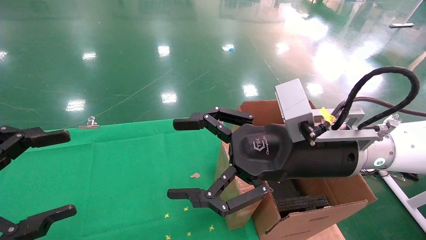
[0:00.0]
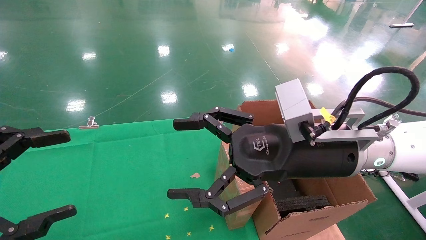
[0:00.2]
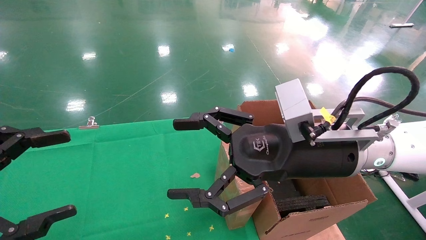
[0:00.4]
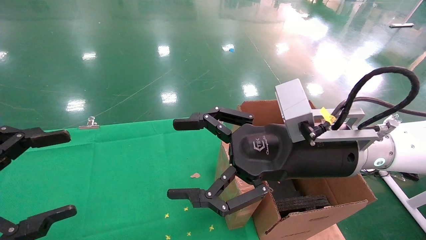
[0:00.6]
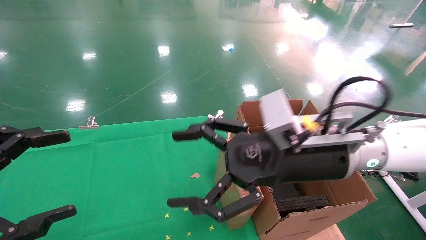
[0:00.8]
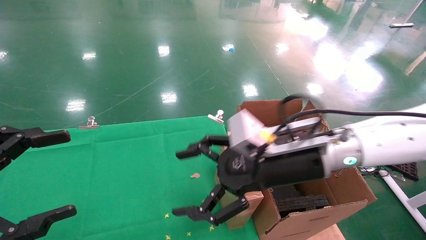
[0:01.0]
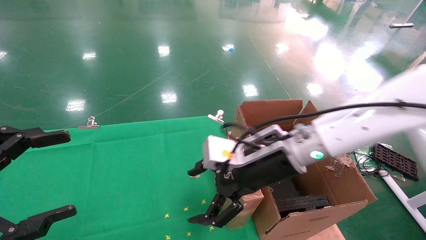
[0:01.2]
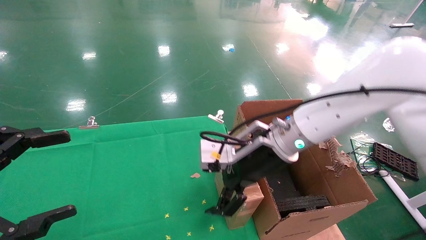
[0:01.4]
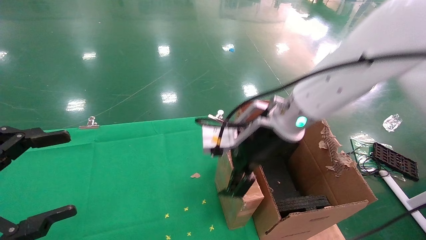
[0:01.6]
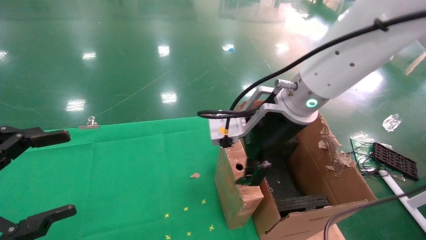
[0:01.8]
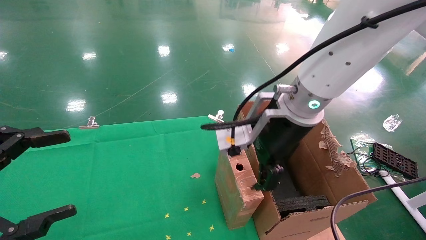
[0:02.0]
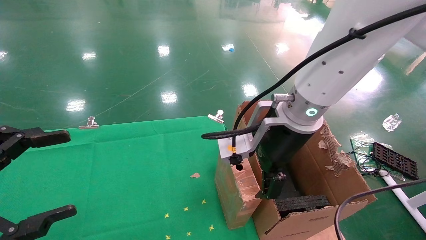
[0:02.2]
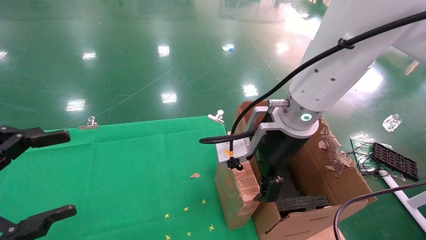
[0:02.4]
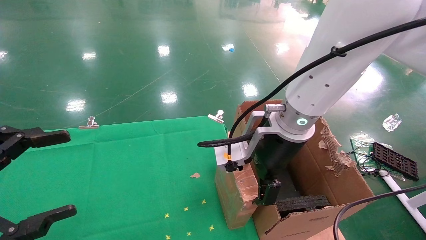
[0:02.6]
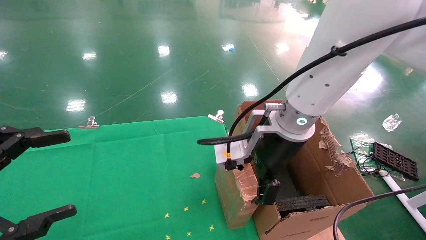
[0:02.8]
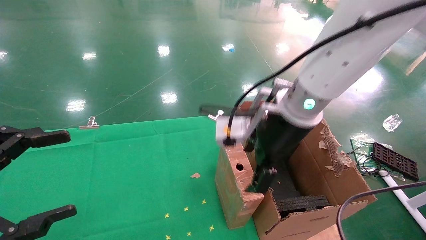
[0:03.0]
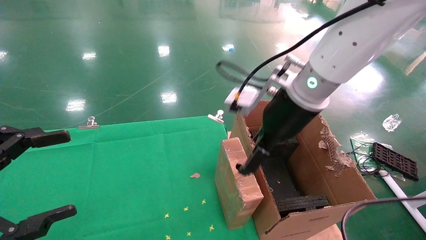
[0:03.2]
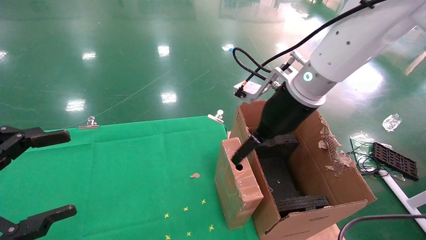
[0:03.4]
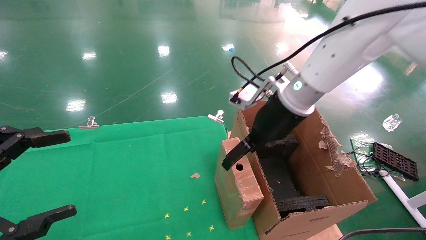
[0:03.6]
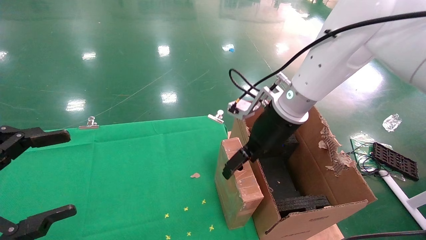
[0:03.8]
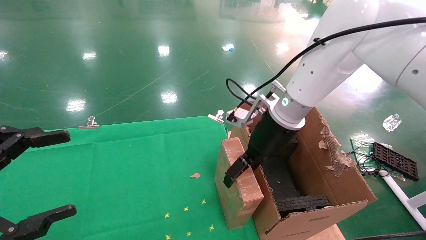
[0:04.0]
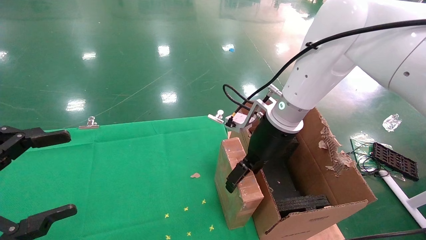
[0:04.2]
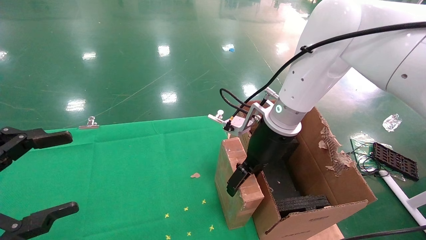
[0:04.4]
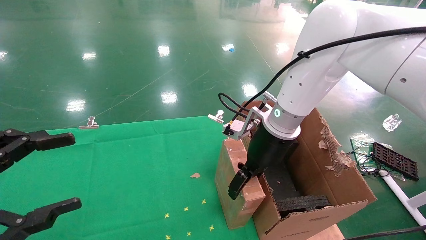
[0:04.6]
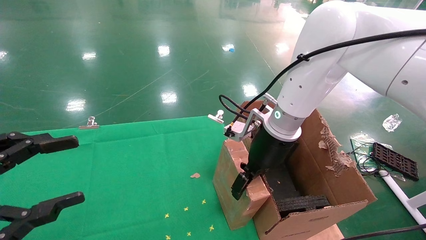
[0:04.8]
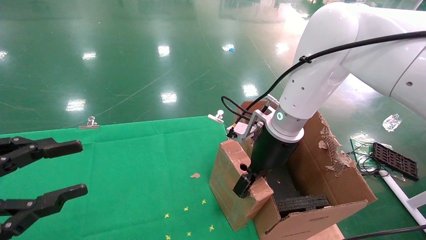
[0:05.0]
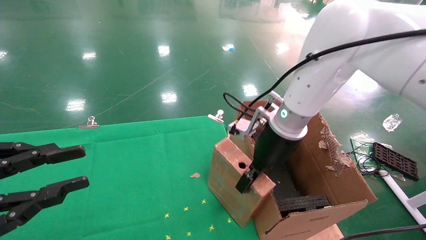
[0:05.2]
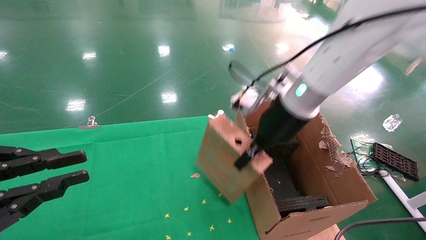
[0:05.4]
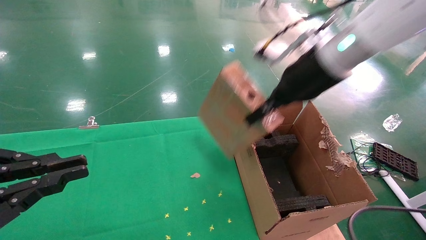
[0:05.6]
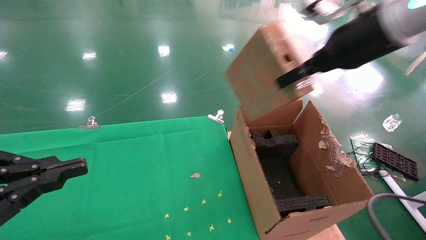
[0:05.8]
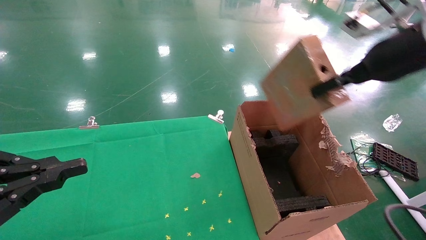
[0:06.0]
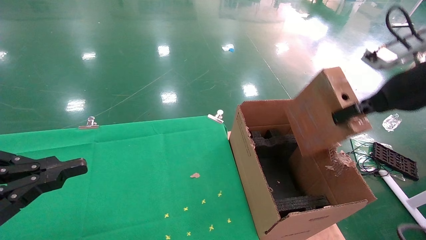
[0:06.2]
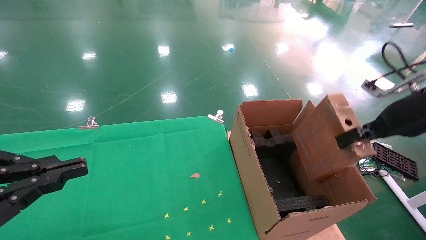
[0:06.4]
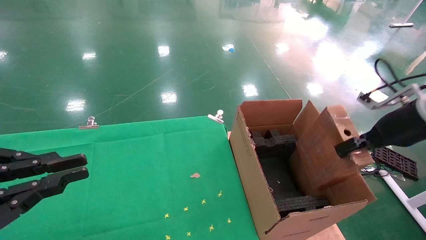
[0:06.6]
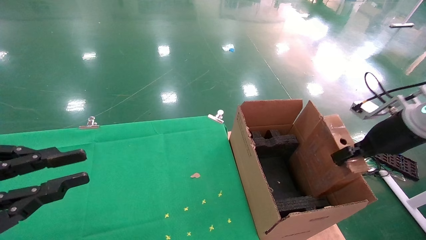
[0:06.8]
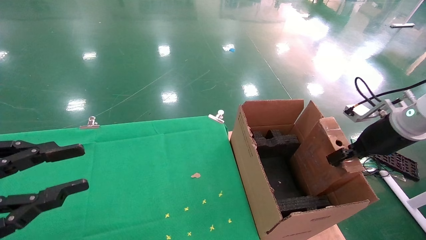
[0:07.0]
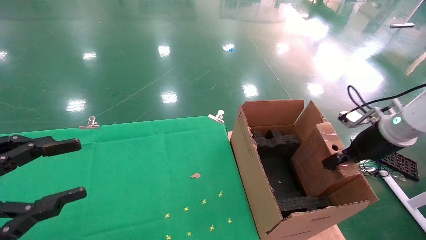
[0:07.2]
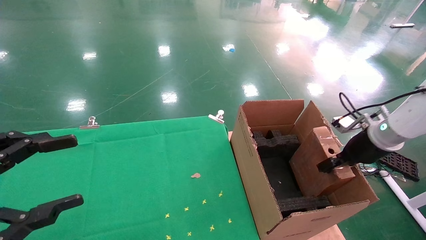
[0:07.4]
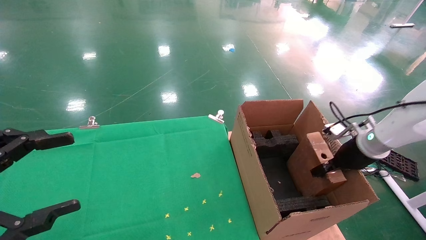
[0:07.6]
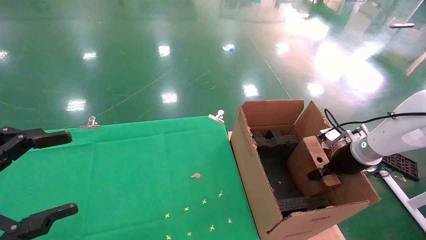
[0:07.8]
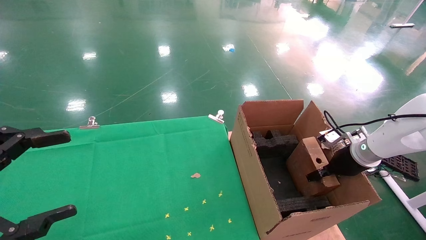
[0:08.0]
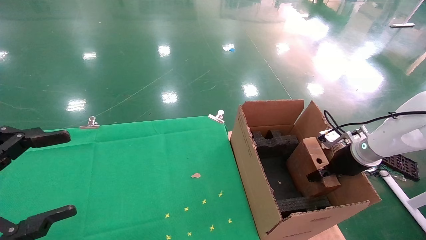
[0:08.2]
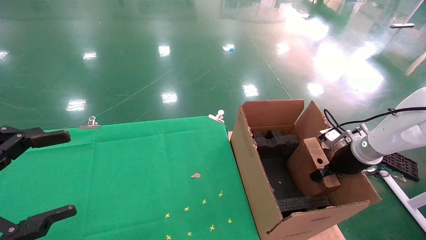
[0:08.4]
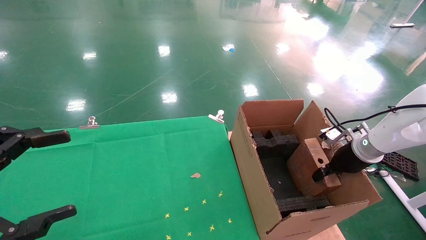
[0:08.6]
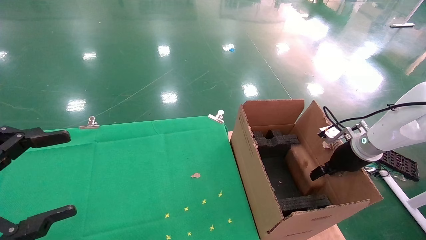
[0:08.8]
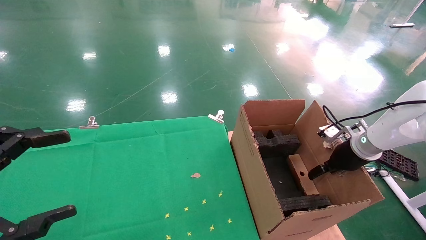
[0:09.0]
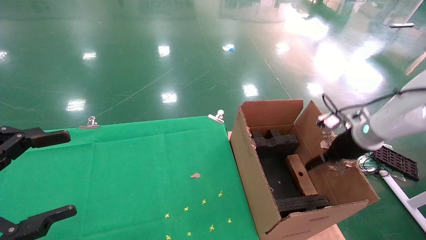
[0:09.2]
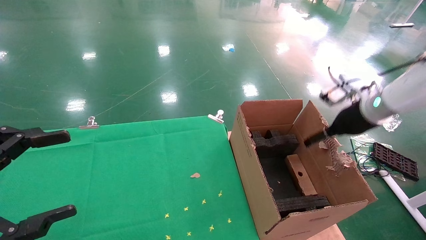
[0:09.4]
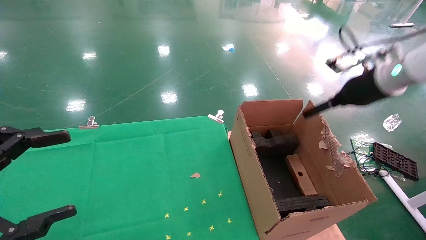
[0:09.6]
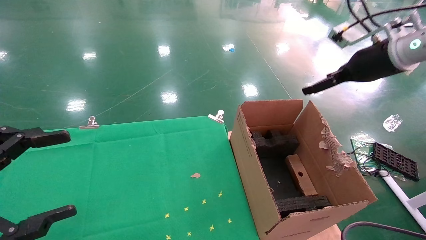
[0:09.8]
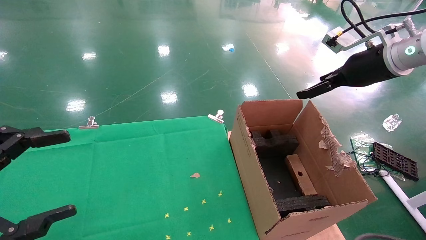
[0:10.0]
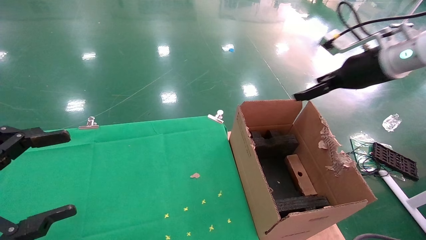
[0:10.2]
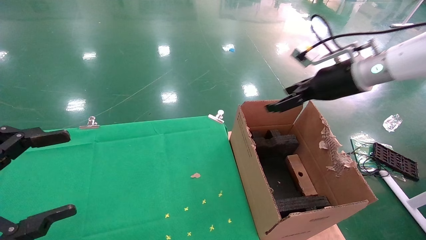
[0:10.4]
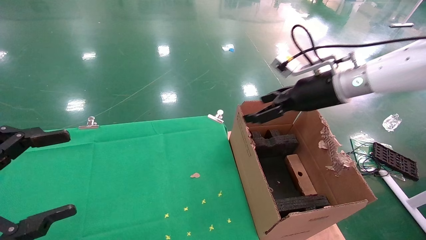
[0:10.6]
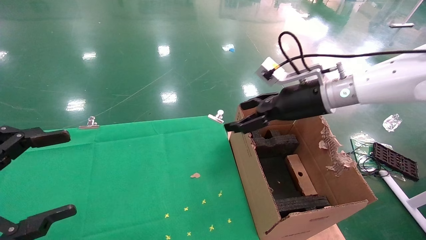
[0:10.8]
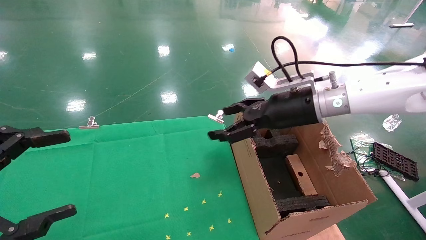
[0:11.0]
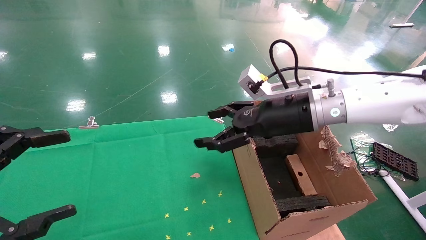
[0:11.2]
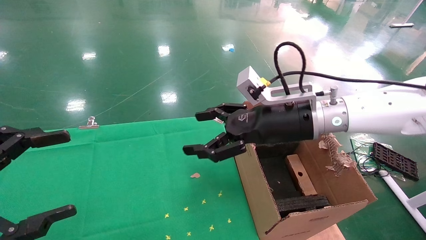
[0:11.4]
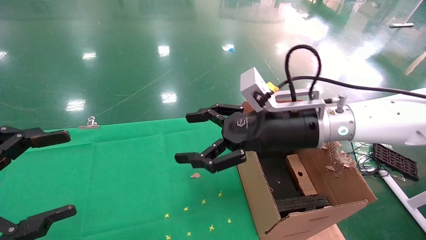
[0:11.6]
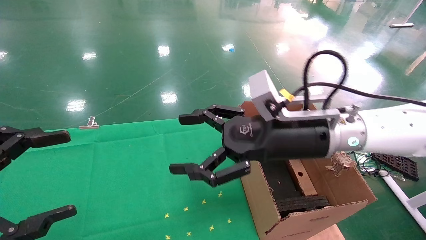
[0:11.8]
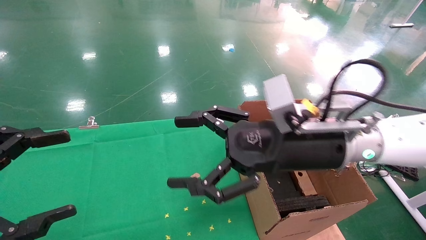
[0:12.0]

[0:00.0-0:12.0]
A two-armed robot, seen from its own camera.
Task of the whole recording: using a robotic arm to pick up a cardboard box and palace it the carton.
Step, 0:00.8 to 0:05.0: Pick up the mouse and the power cord paper box.
Step, 0:05.2 to 0:09.2: Place the mouse and the power cord paper box into the container.
0:00.0 to 0:01.6: The right gripper shifts some 10 cm forward.
0:03.0 to 0:04.4: The right gripper moves forward and downward, some 10 cm.
0:04.4 to 0:06.0: The right gripper heads to the right, upward and backward, covering approximately 25 cm, and closes its fingers. The left gripper closes its fingers.
0:06.0 to 0:07.6: The left gripper opens its fingers; the right gripper heads downward, covering about 25 cm.
0:07.6 to 0:09.0: The right gripper opens.
0:09.0 to 0:10.4: The right gripper moves upward and to the left, about 20 cm, and opens its fingers.
0:10.4 to 0:12.0: The right gripper is displaced to the left, backward and downward by approximately 20 cm.

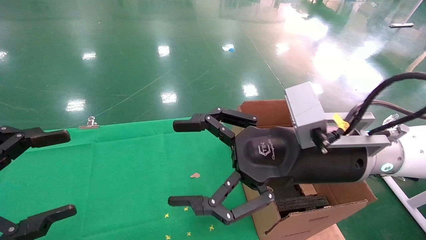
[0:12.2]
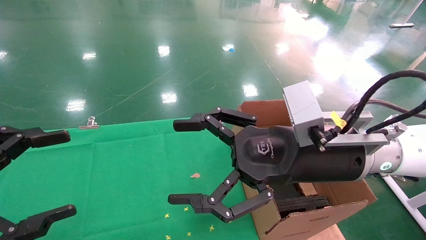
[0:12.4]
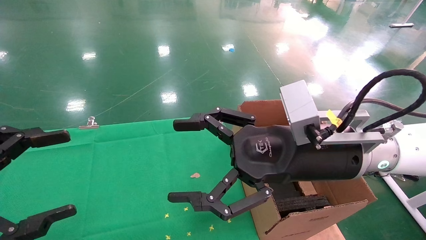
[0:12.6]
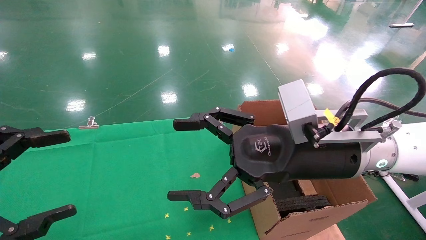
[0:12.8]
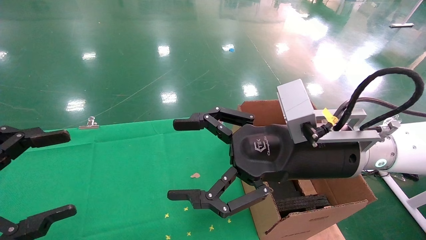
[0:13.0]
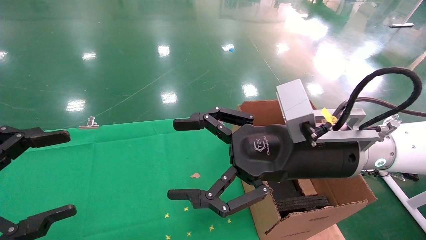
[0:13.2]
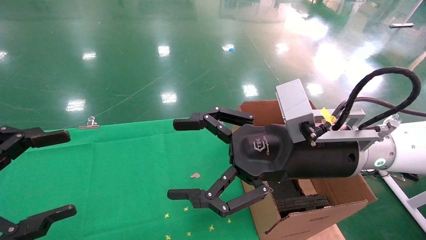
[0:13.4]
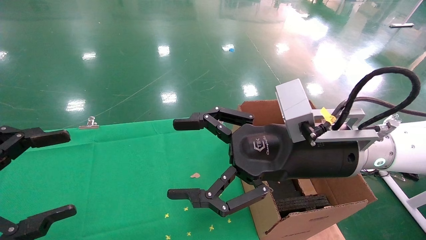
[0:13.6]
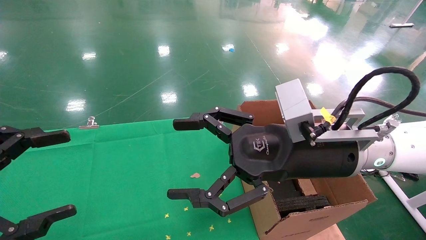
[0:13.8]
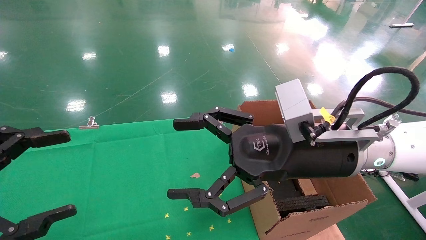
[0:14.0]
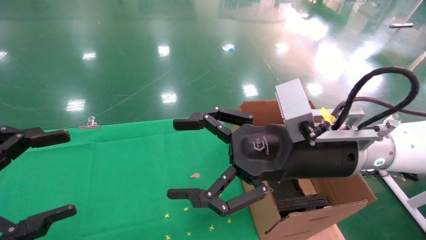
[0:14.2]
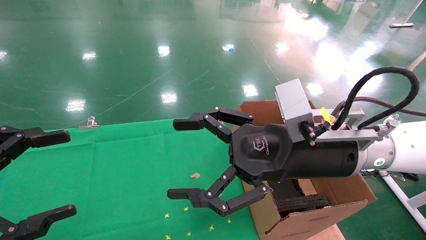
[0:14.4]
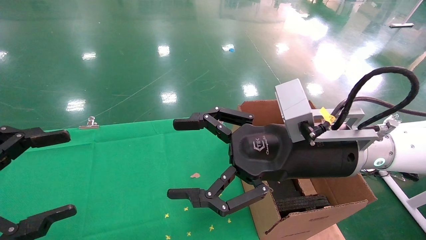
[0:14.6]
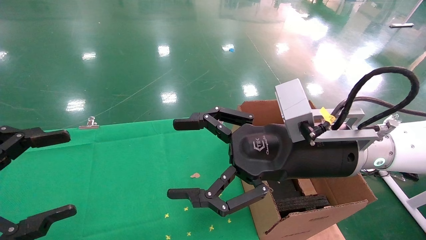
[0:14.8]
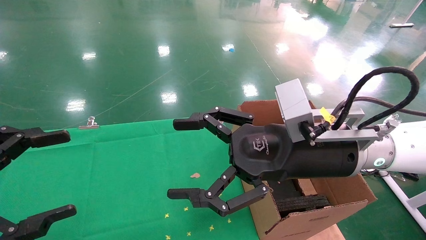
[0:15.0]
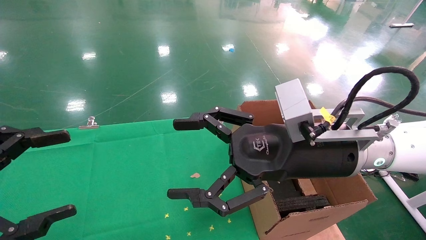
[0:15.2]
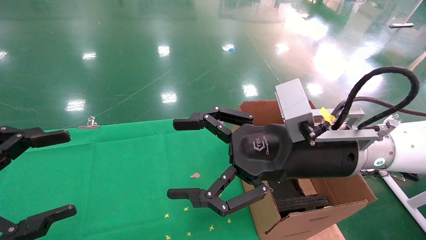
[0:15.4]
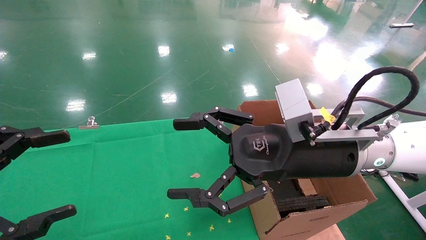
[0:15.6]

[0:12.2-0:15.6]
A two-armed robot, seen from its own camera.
Task of the whole recording: using a robotic arm to pick up a cardboard box and palace it the carton.
0:12.2 to 0:15.6: The two grippers keep their place.

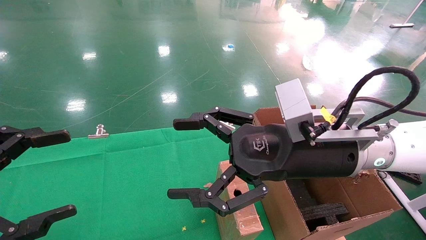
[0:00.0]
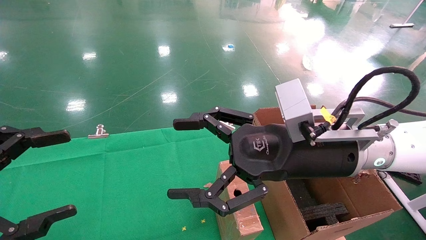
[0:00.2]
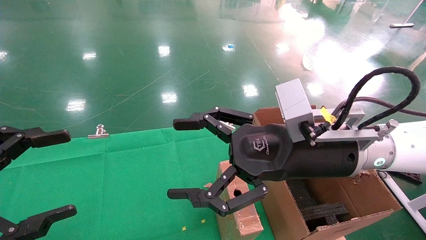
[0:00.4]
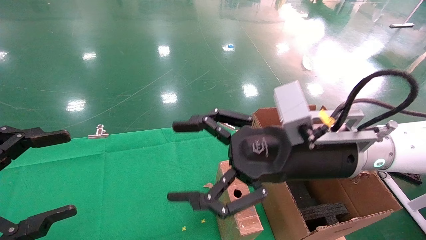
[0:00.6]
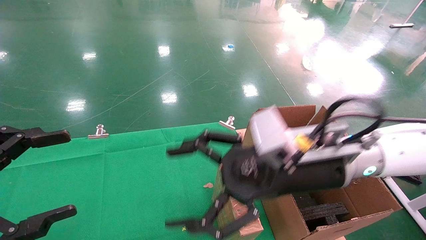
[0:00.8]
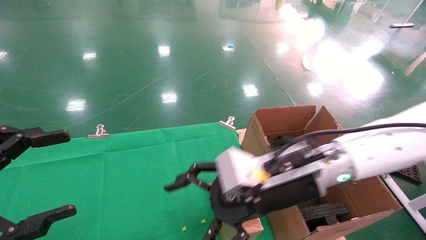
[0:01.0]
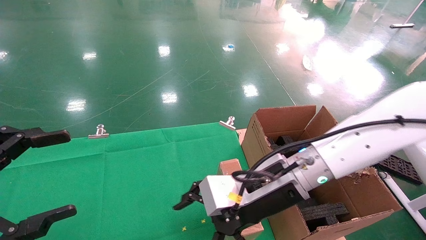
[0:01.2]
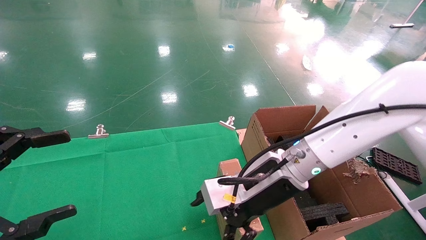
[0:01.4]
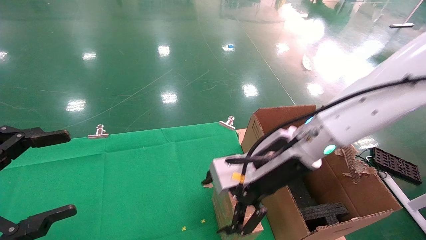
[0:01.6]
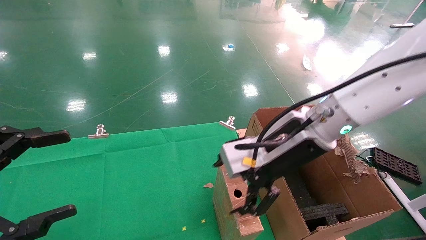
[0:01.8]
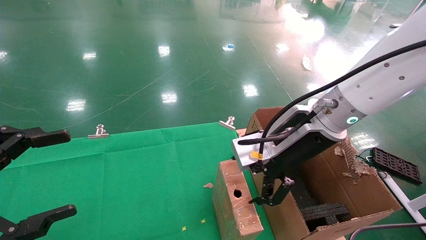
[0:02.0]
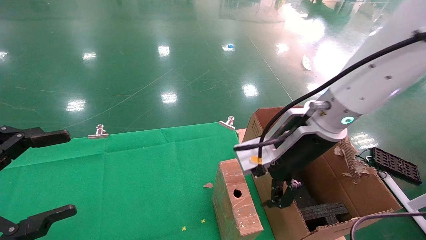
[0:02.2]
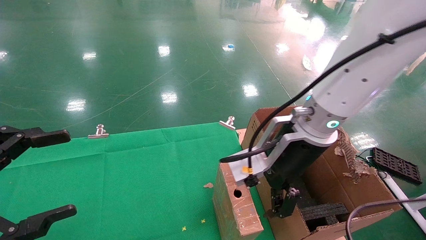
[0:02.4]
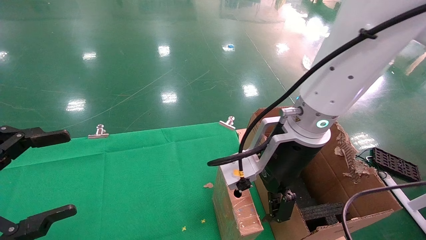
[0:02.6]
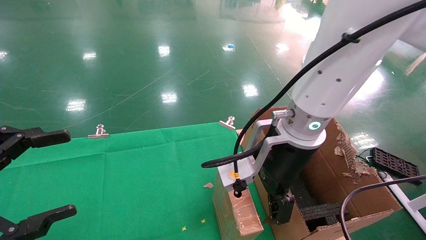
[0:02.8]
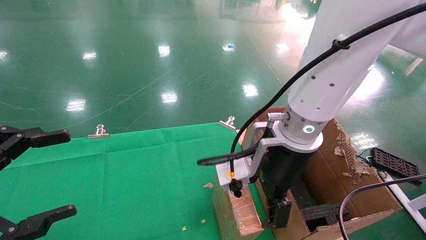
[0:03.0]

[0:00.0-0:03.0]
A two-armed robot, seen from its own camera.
Task of the whole recording: using a robotic arm to pick up a cardboard box and palace it the carton.
0:00.0 to 0:01.6: The right gripper ends up some 5 cm from where it was.
